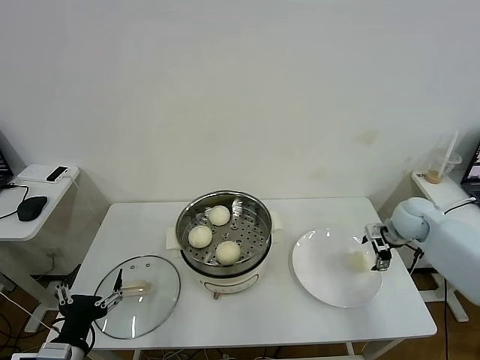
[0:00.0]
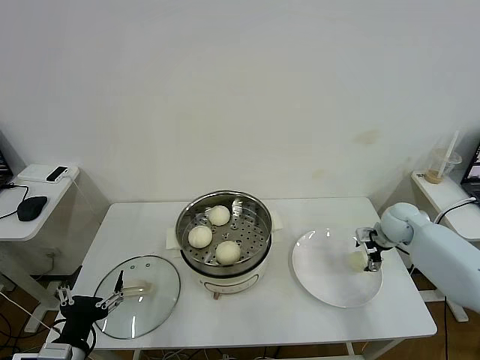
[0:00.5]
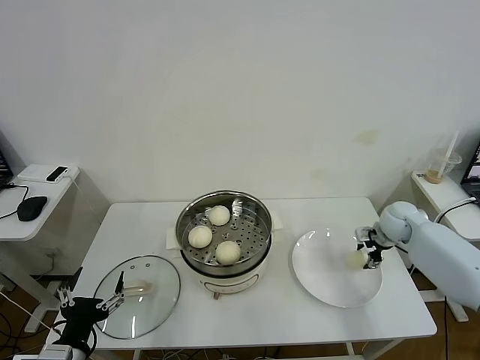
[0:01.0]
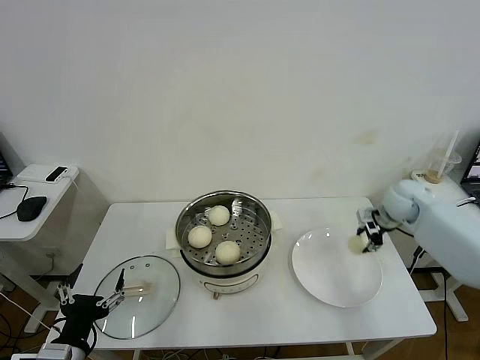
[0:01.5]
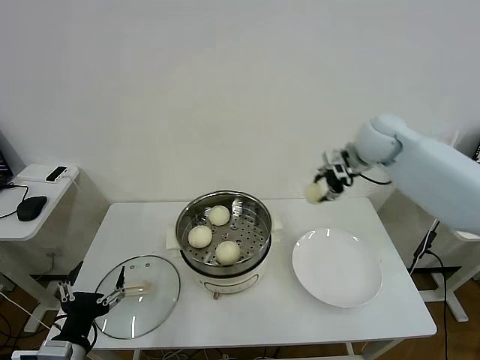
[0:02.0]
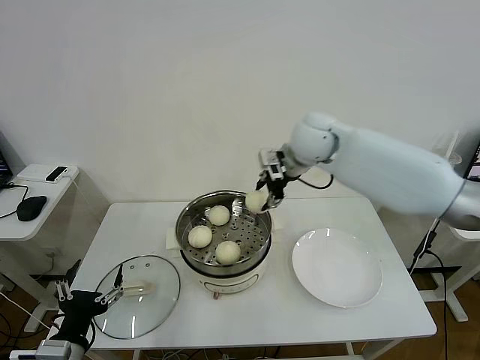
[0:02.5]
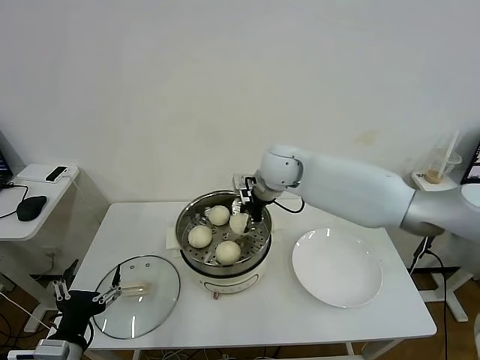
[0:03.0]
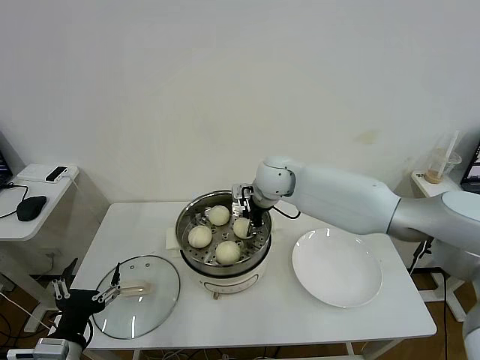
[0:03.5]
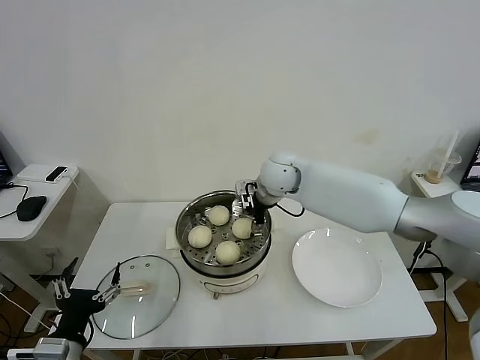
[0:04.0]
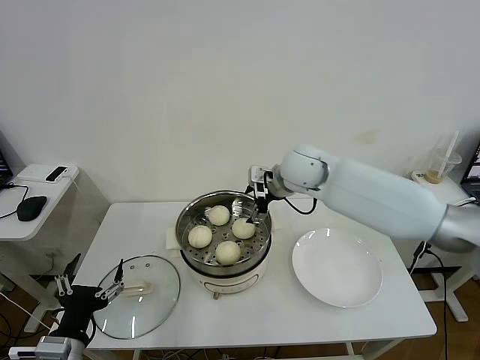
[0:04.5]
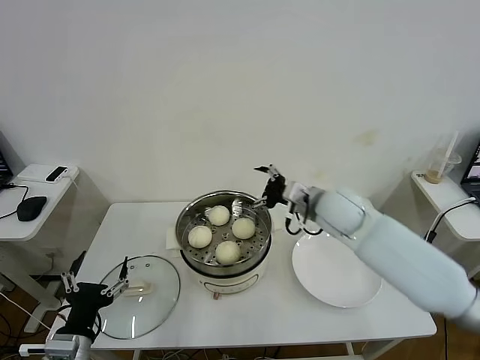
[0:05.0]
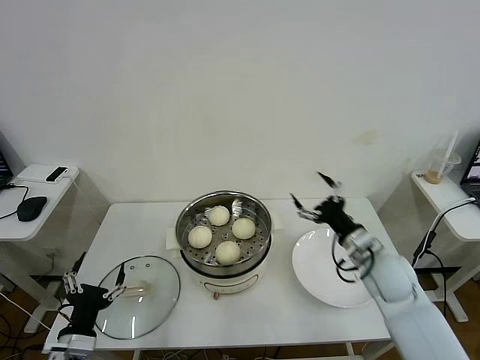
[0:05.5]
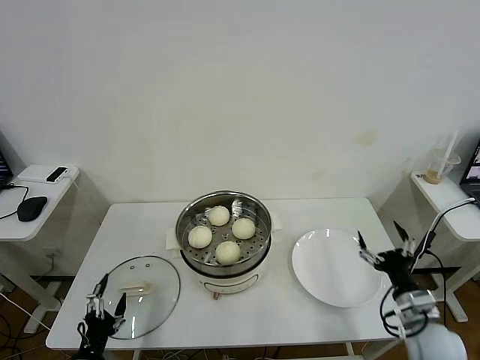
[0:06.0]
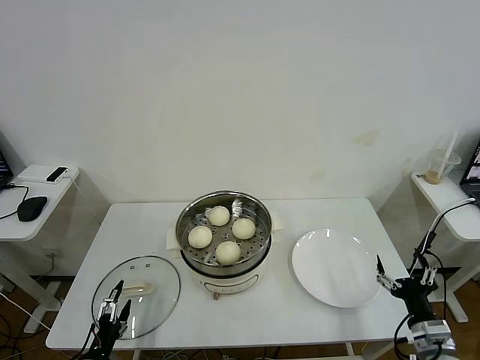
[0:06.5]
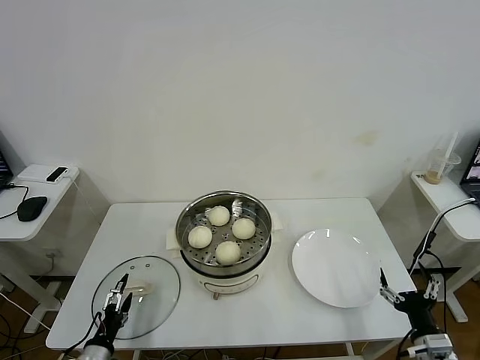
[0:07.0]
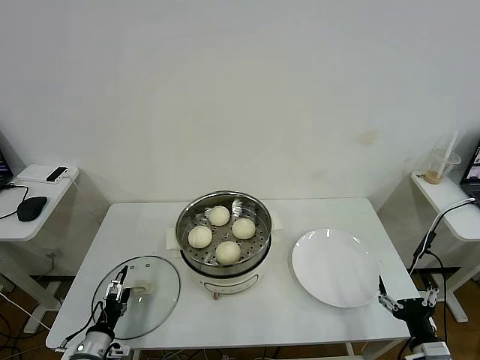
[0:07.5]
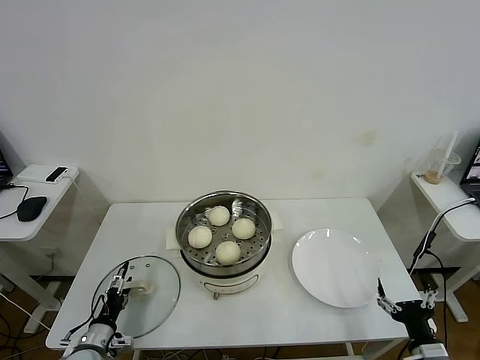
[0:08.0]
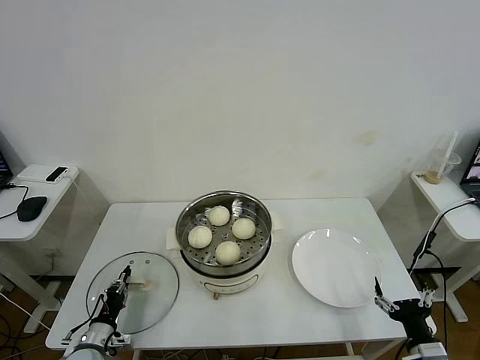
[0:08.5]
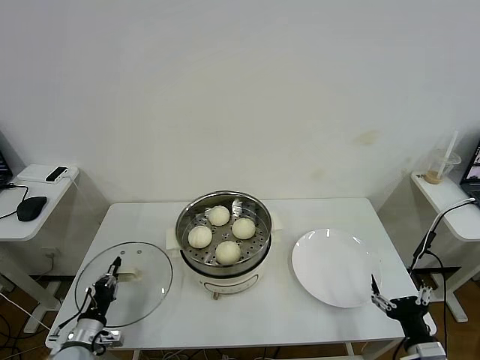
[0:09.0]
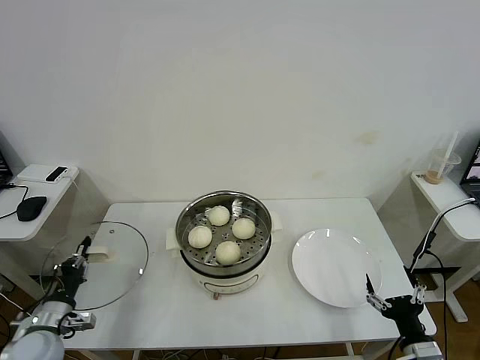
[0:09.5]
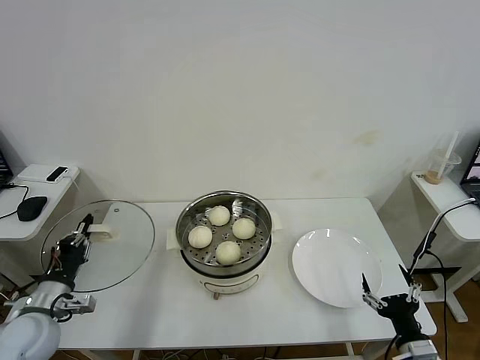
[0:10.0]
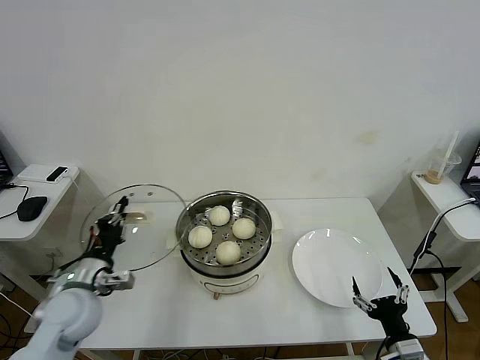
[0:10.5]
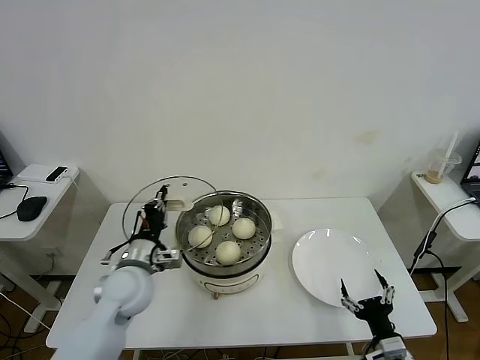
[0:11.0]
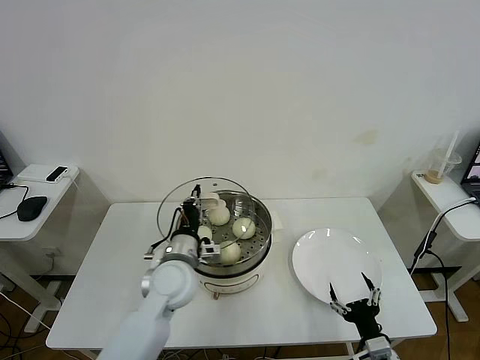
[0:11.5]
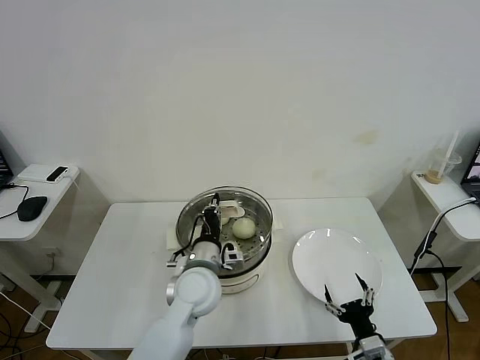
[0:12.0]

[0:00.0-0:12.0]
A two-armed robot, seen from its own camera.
Task of the whole recording: take steamed baozi put them in steamer then cover it.
Step, 0:01.5 to 0:04.0: Place the baozi on the steamer with right gripper.
Step, 0:04.5 to 0:08.5: Grasp the pot lid with left gripper.
0:00.0 to 0:02.0: The right gripper moves upward and to the left, approximately 25 cm, and closes.
0:02.0 to 0:04.0: The right gripper moves to the left and downward, about 20 cm, and opens up.
0:04.0 to 0:06.0: The right gripper shifts about 50 cm backward, to the right and downward; the left gripper heads downward, covering some 10 cm.
0:06.0 to 0:08.0: The right gripper travels backward by some 10 cm. Meanwhile the left gripper heads forward and downward, covering about 15 cm.
0:08.0 to 0:10.0: The left gripper goes some 15 cm upward, and closes up.
0:10.0 to 0:12.0: The left gripper goes about 30 cm to the right, while the right gripper is displaced to the left and downward by roughly 10 cm.

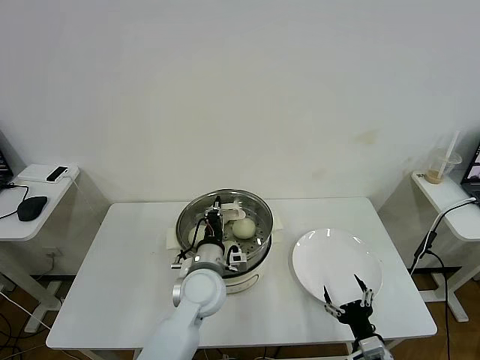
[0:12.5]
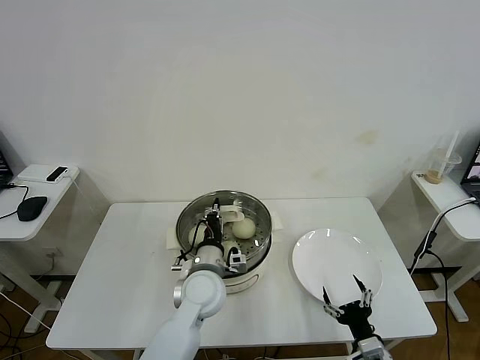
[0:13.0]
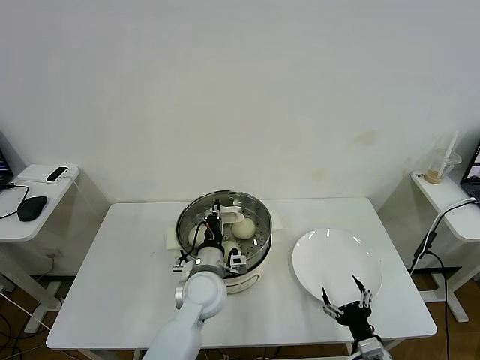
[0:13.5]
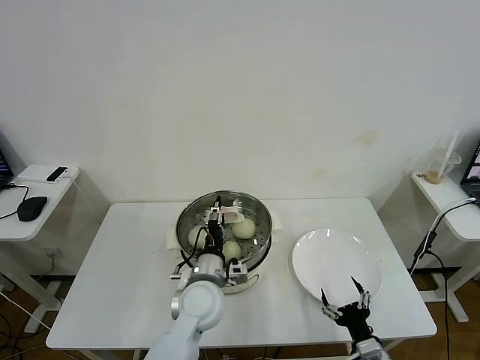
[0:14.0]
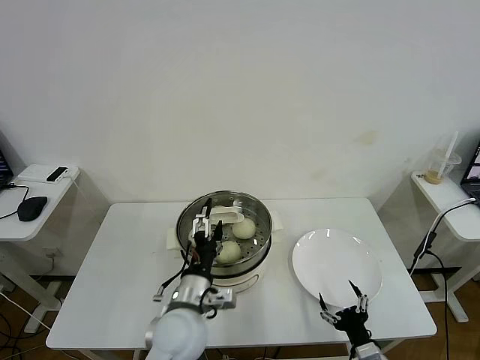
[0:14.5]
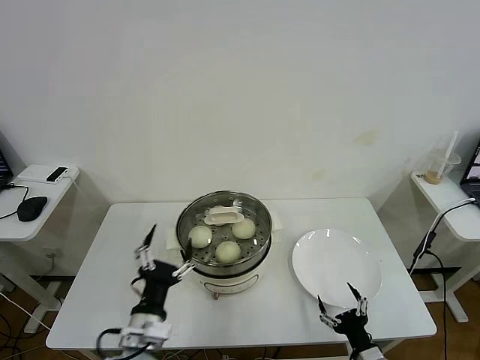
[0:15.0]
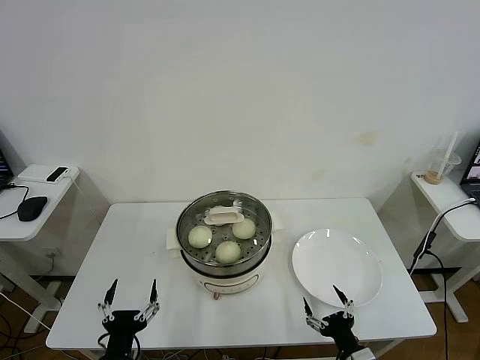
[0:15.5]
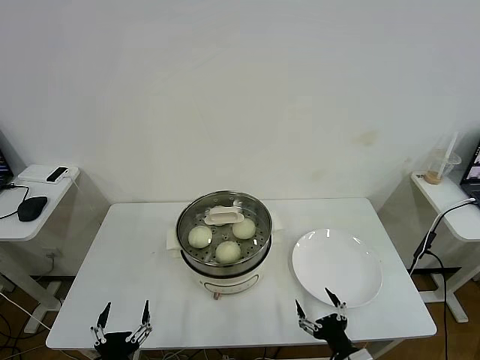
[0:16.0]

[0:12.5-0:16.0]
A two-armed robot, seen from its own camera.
Task of the whole recording: take steamed baozi put them in steamer then cover it.
Step, 0:12.5 to 0:14.5: Place the pot lid on the steamer with left gripper.
0:12.5 to 0:14.5: The left gripper moves backward, approximately 10 cm, and opens.
0:14.5 to 0:16.0: The left gripper heads backward, to the left and downward, covering roughly 25 cm.
